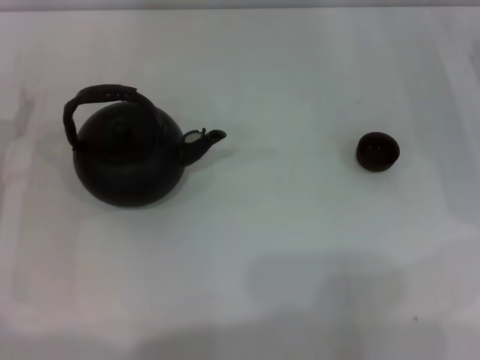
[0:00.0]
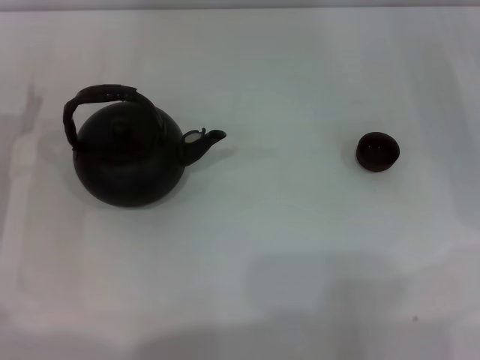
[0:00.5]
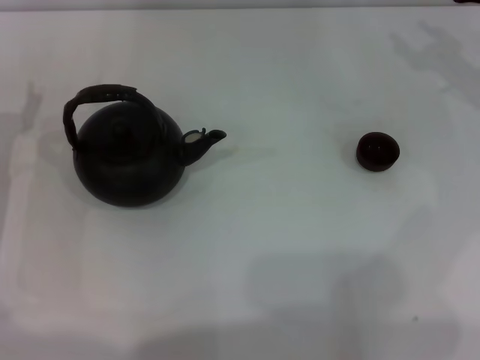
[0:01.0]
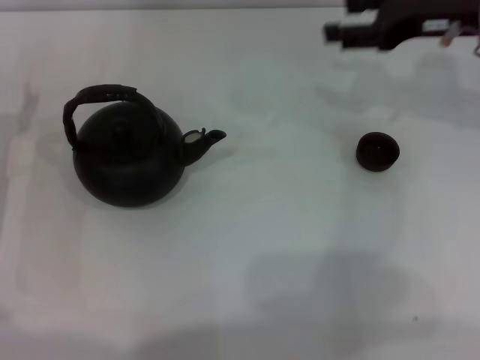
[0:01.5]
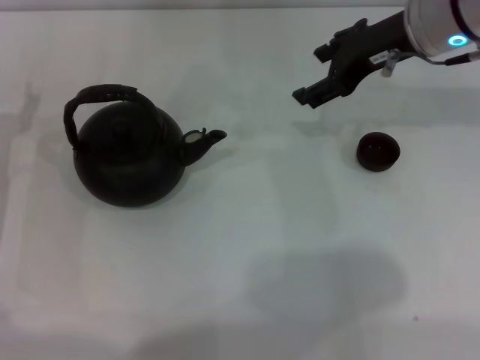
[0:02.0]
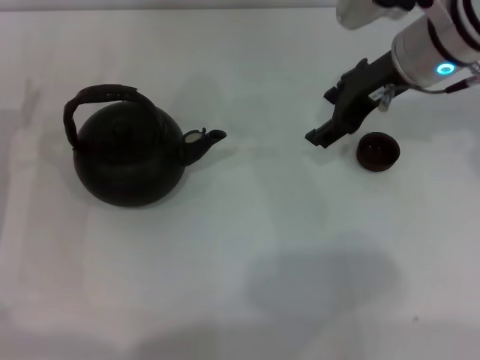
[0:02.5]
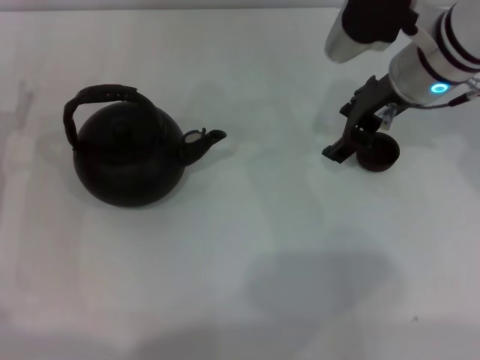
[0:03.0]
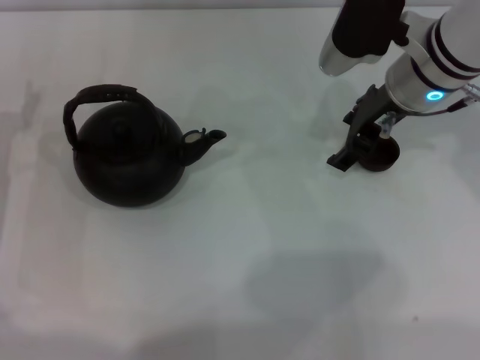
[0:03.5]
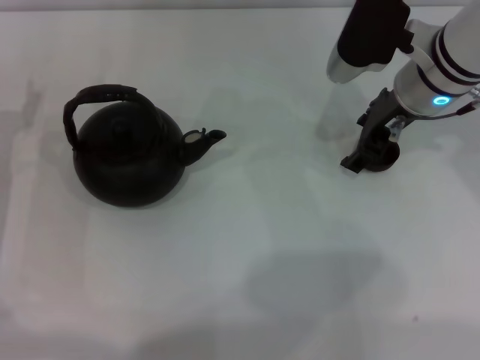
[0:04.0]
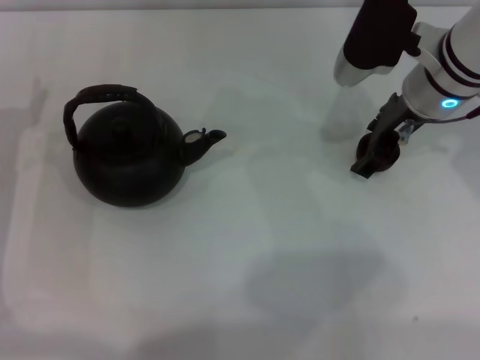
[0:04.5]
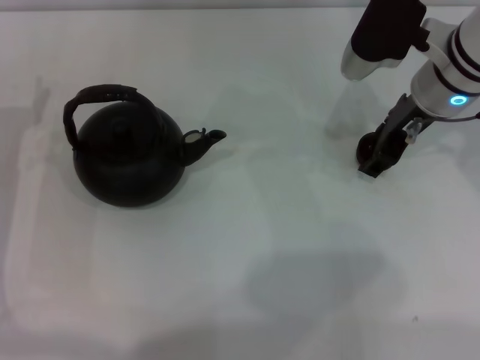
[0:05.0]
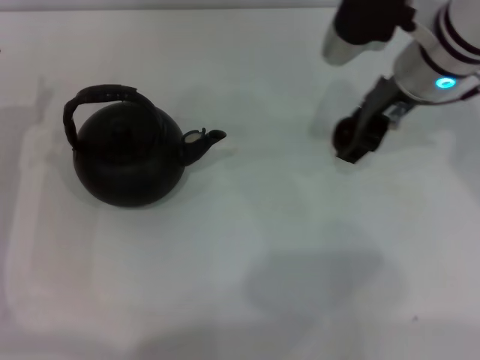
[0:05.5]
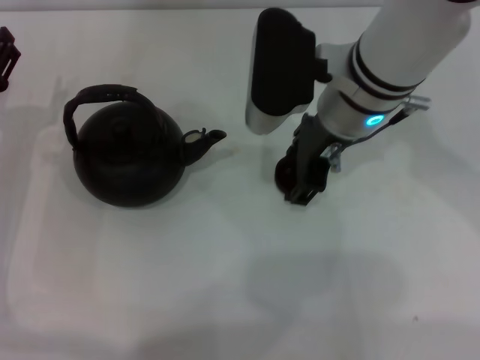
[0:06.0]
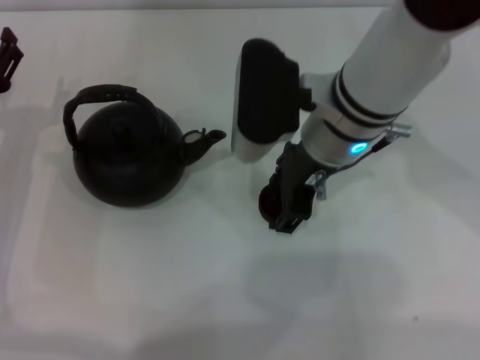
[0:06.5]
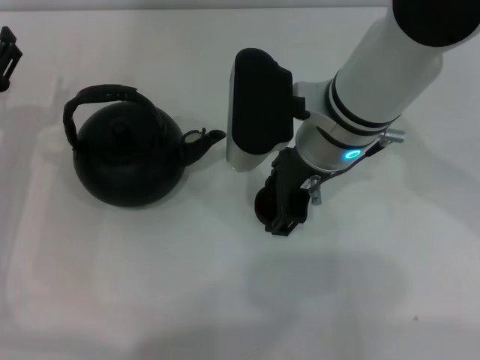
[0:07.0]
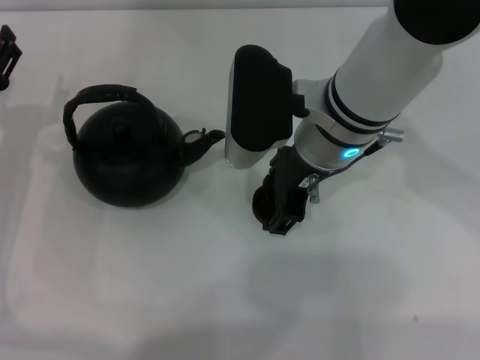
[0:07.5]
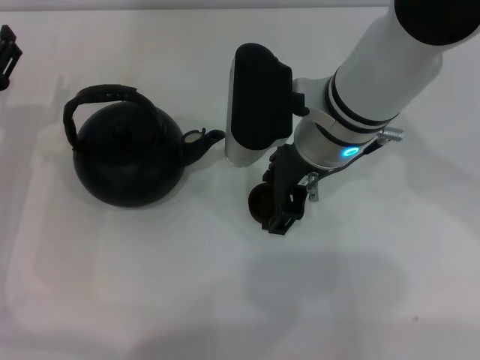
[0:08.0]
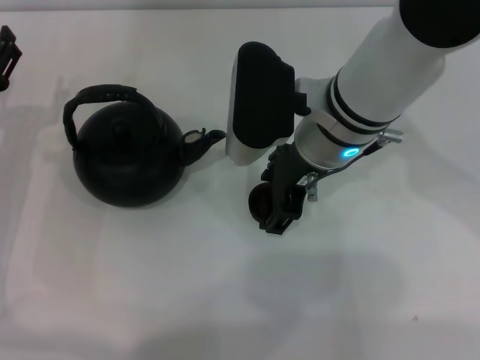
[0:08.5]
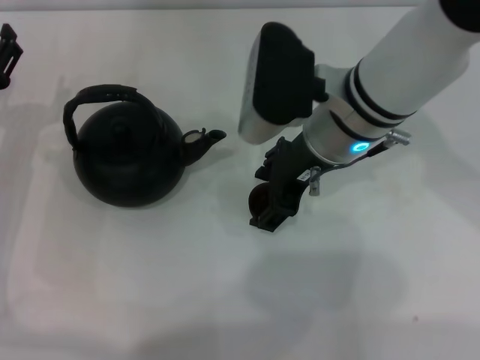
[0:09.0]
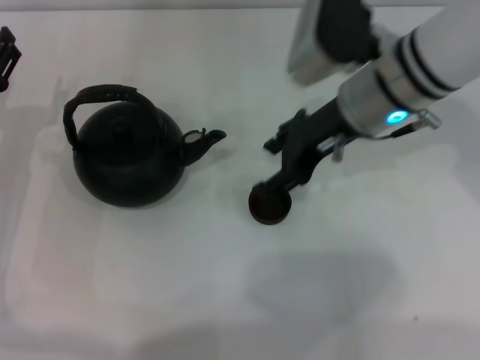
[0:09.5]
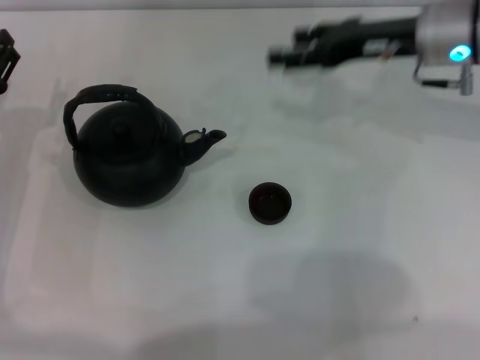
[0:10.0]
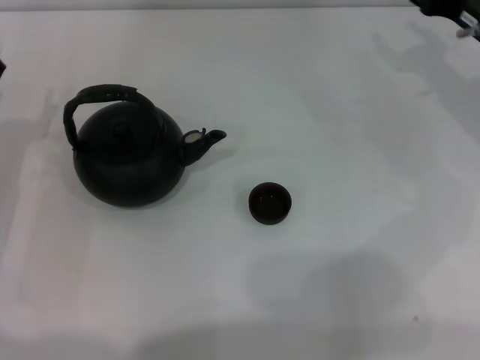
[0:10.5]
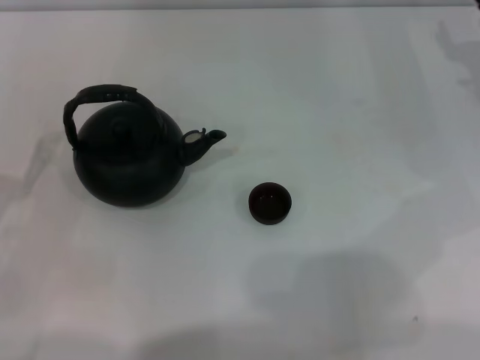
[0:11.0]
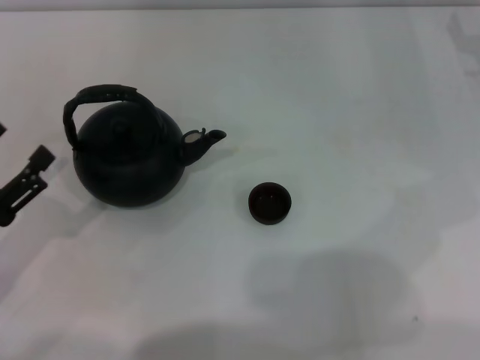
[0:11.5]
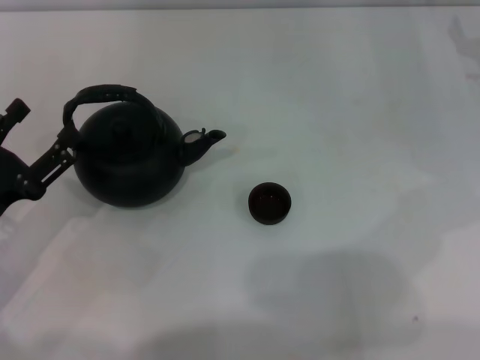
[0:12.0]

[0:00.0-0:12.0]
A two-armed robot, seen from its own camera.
Task of the whole recording: Grasp the handle of the teapot with one hand and pour tea into the teacup.
Step, 0:00.0 to 0:05.0: Pick up the teacup with the right gripper.
Step, 0:06.0 to 0:09.0: Place the teacup in the center of view with the right gripper.
0:00.0 to 0:02.0: The right gripper travels to the left and upward by roughly 20 cm, and closes, then reopens.
0:02.0 to 0:04.0: The right gripper heads downward, covering roughly 5 cm, and closes up.
0:04.0 to 0:06.0: The right gripper moves to the left, some 10 cm, and closes up.
0:06.0 to 0:08.0: The grippers make only small movements.
0:08.0 to 0:10.0: The right gripper is displaced to the right and forward by about 15 cm, and opens its fingers.
0:10.0 to 0:12.0: The right gripper heads to the right and downward, covering some 15 cm; the left gripper heads backward, covering approximately 10 cm.

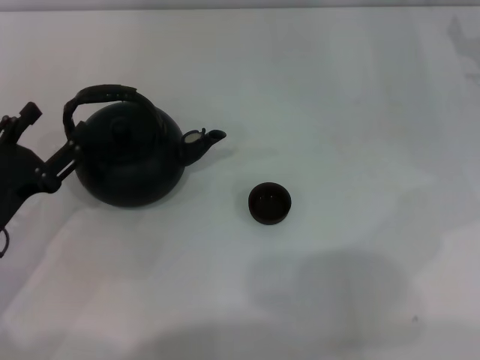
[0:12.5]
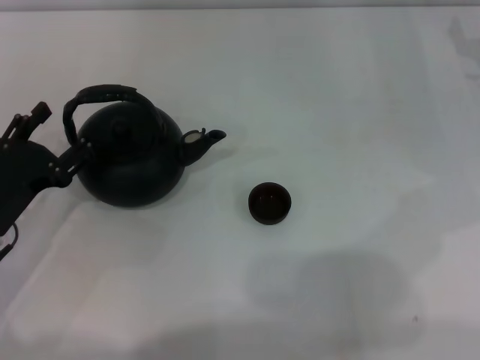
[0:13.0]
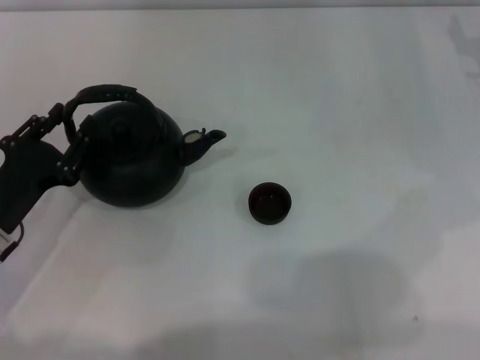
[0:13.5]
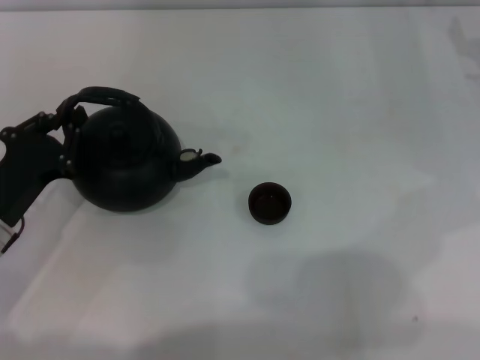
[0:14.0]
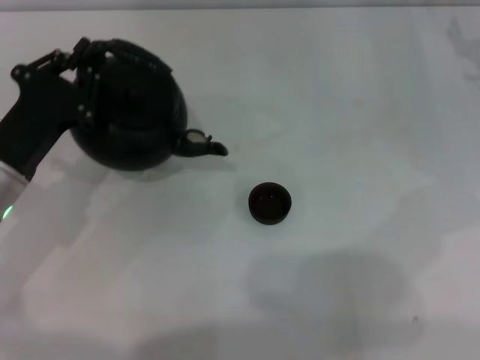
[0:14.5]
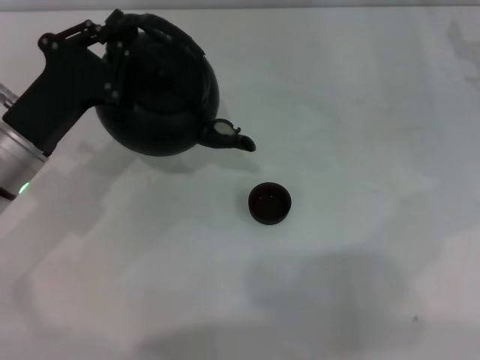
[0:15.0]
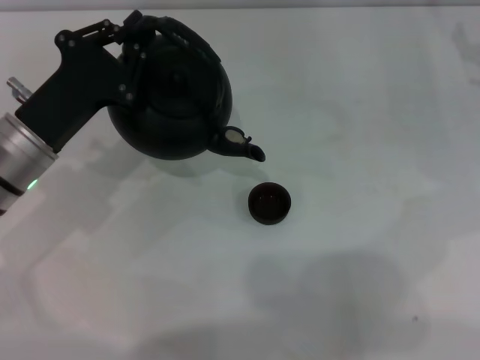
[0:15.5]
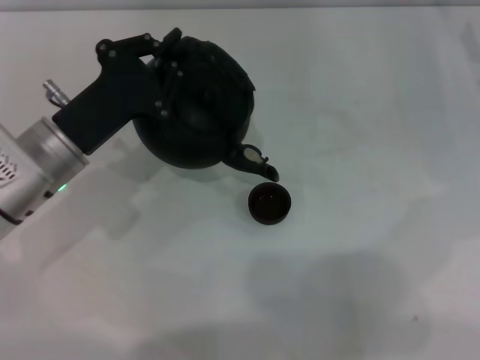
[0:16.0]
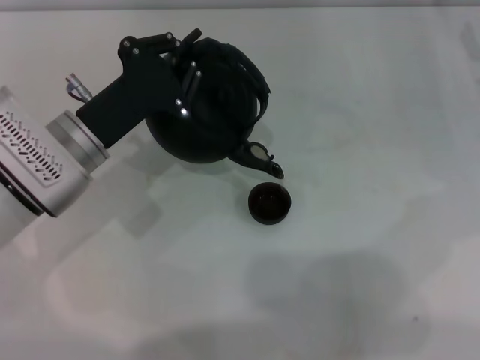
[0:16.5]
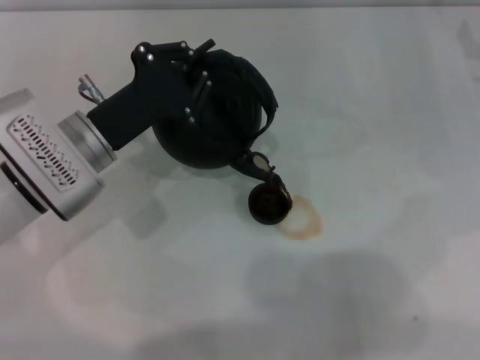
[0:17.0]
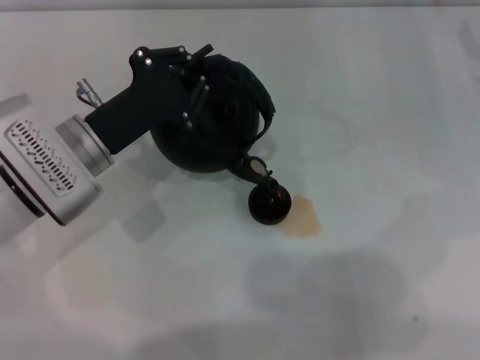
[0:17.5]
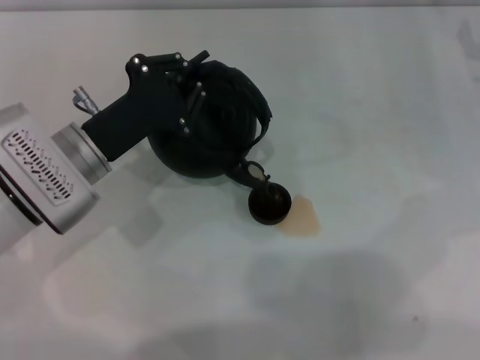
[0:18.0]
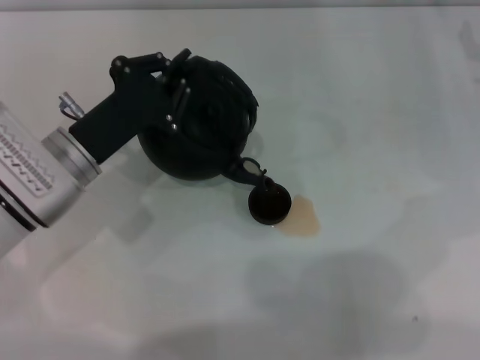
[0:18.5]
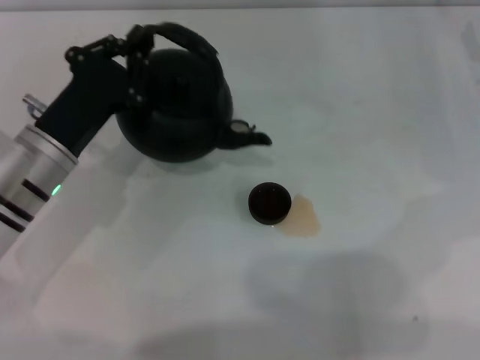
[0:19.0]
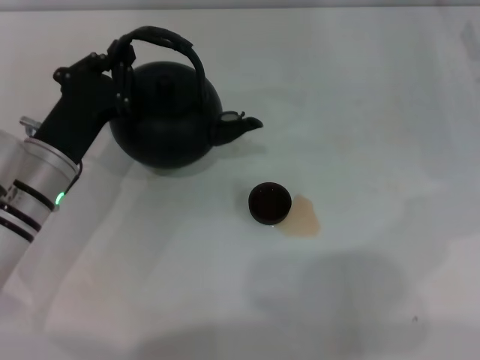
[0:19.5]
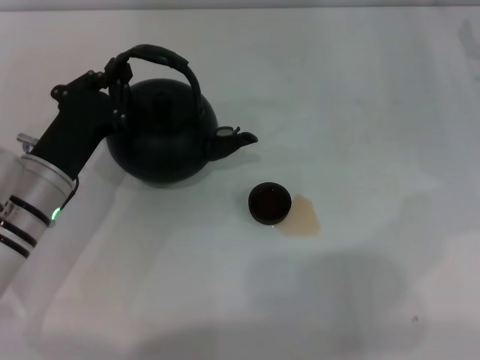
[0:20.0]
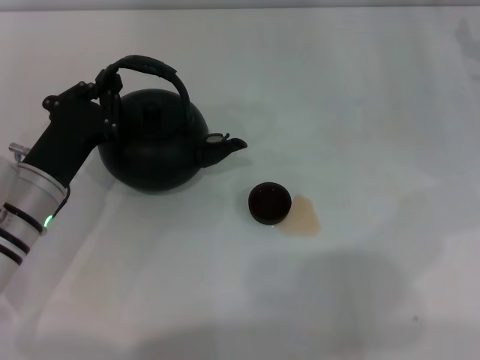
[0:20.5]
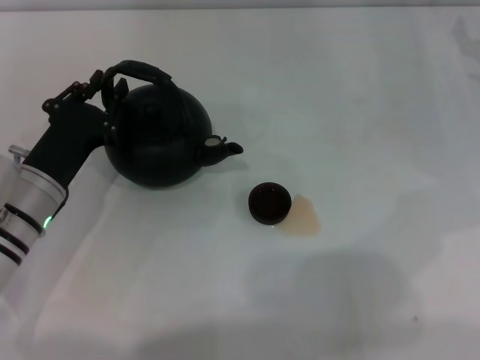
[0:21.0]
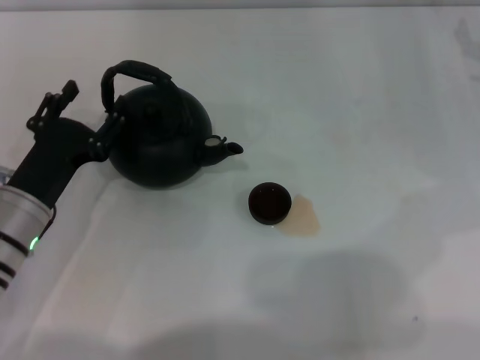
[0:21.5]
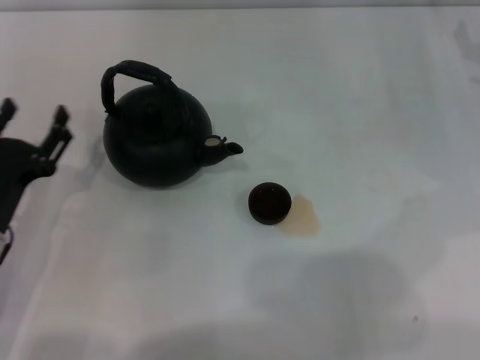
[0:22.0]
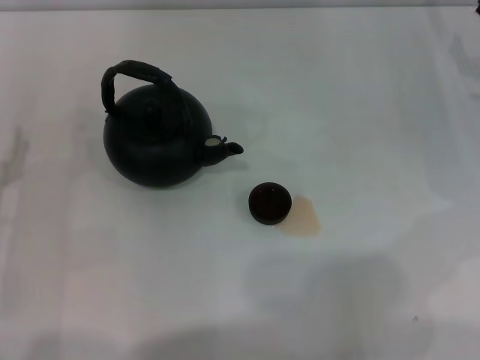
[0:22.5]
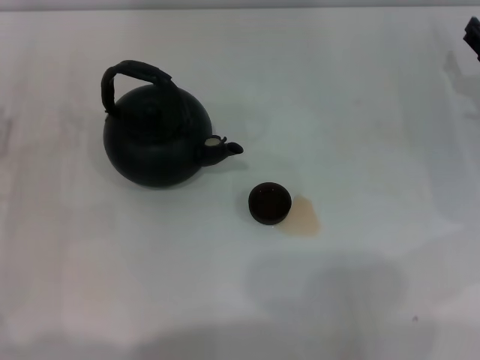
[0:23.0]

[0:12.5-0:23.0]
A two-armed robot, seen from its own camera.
Task of the whole recording: Grasp the handle of the teapot with one hand and pour tea into the teacup.
Step, 0:14.5 to 0:18.5: Pour tea into the teacup with the left gripper.
Step, 0:19.0 to 0:21.5: Put down the teapot with the left gripper.
0:12.5 to 0:14.5: The left gripper moves forward, about 5 cm, and closes.
0:14.5 to 0:16.5: The left gripper is displaced to the right by roughly 5 cm.
0:19.0 to 0:21.0: The grippers move only a little.
0:21.0 to 0:23.0: The left gripper travels to the left by roughly 10 cm, and opens its fingers.

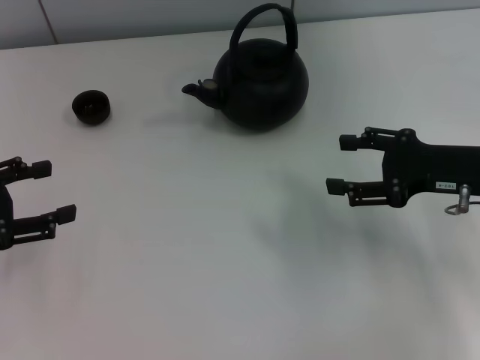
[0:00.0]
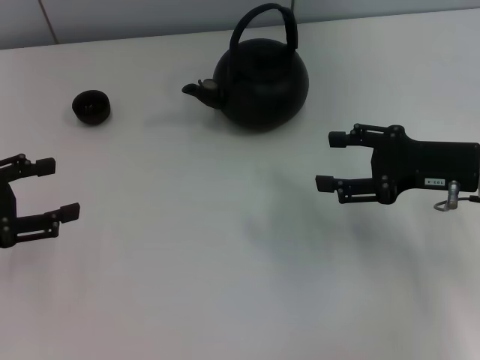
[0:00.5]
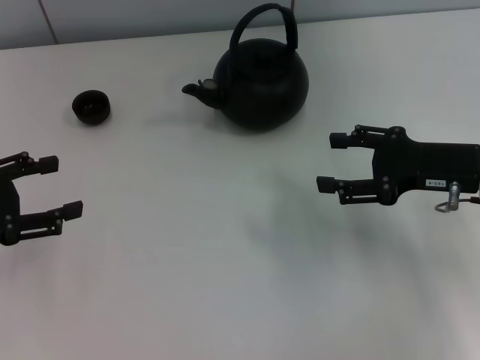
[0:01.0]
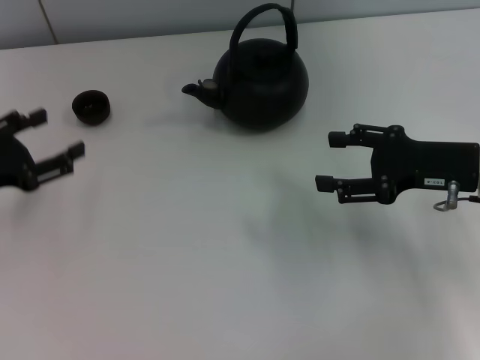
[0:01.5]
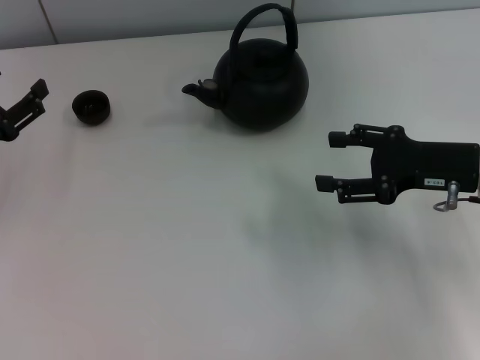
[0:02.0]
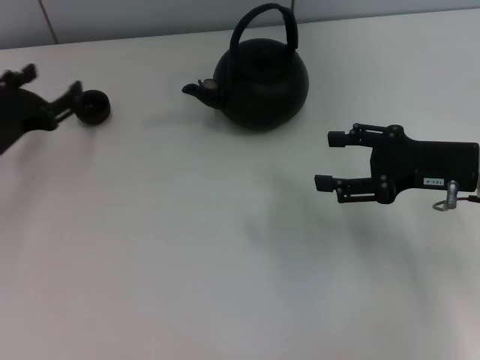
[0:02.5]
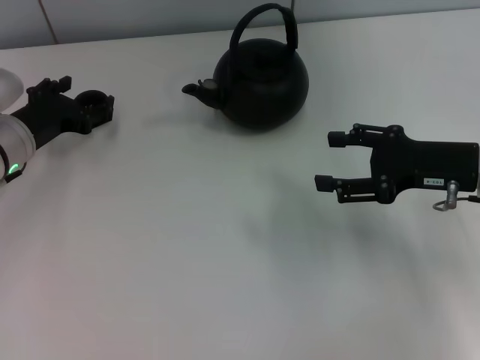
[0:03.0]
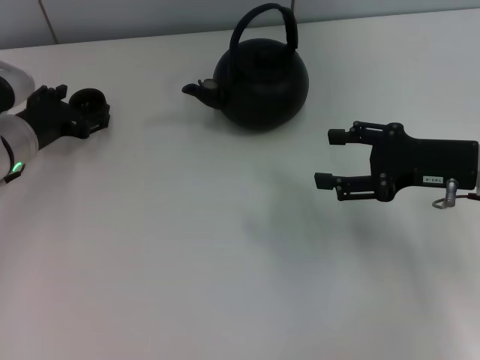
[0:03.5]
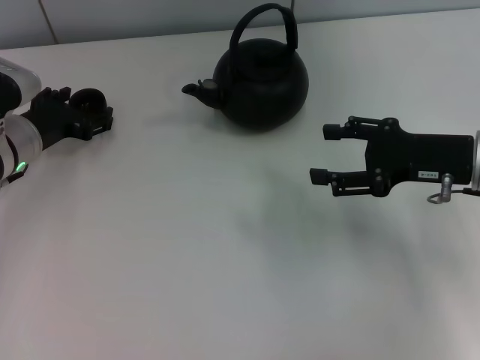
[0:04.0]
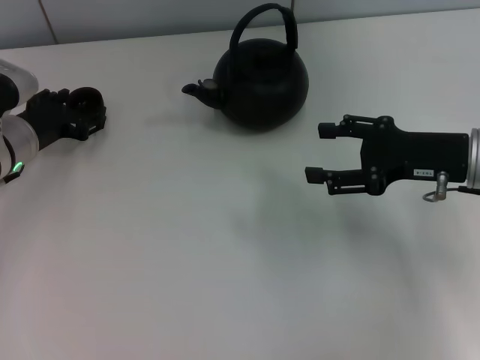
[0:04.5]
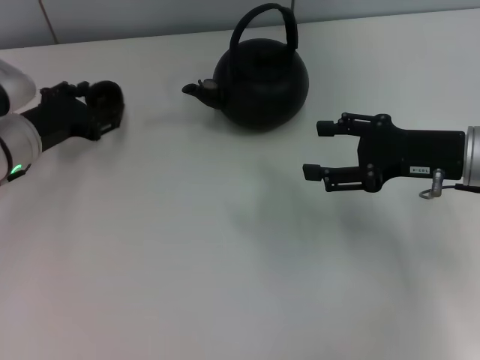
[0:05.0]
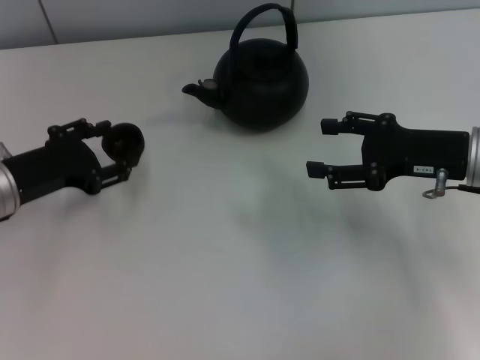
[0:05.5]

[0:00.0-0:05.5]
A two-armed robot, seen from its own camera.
Task of the whole recording: Grasp the handle of the teapot with one hand and pour tea into the teacup.
Step, 0:00.0 to 0:05.5: Pick up the teacup with the left gripper.
0:00.0 to 0:02.0: The left gripper changes place by approximately 5 cm.
0:02.0 to 0:03.5: The left gripper heads forward and to the right, covering roughly 10 cm.
0:03.5 to 0:05.5: The left gripper goes roughly 5 cm backward, and closes its fingers.
